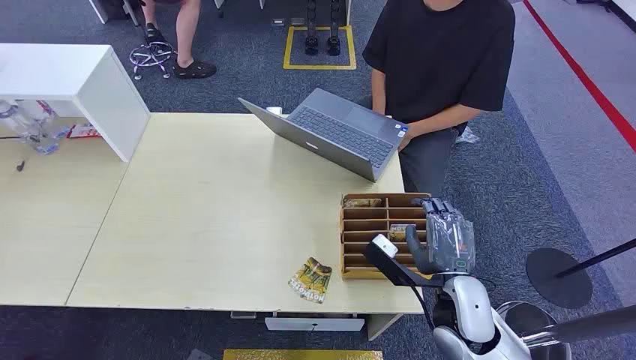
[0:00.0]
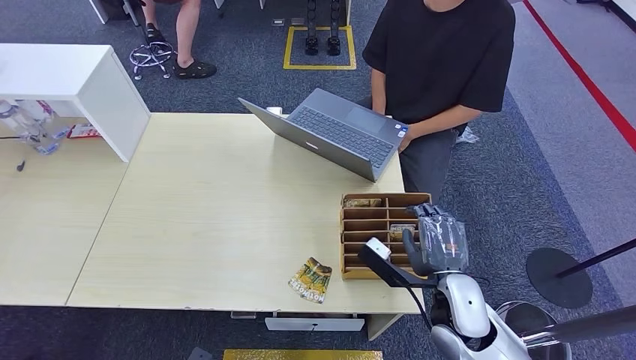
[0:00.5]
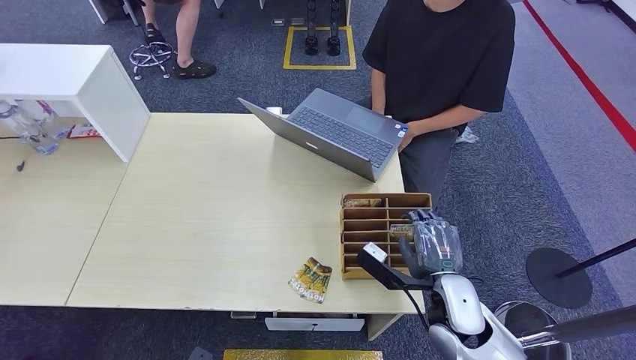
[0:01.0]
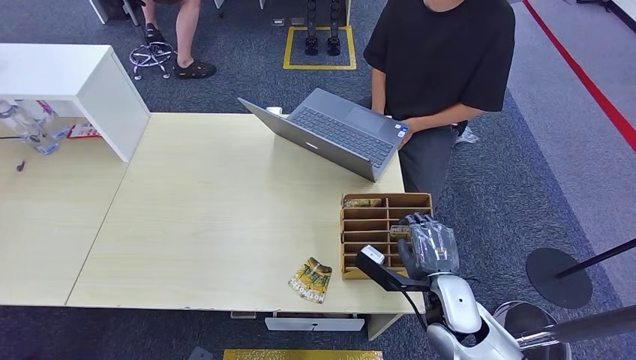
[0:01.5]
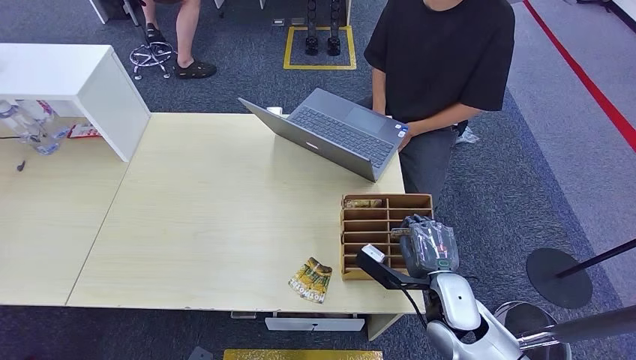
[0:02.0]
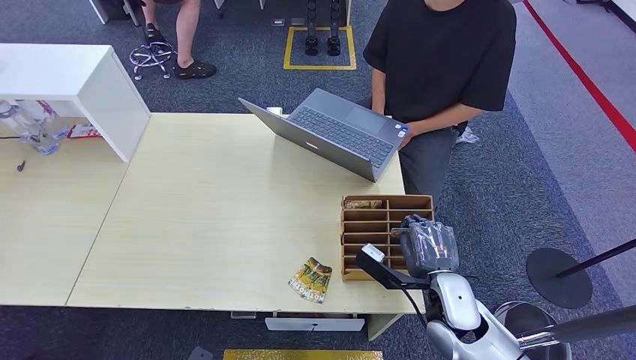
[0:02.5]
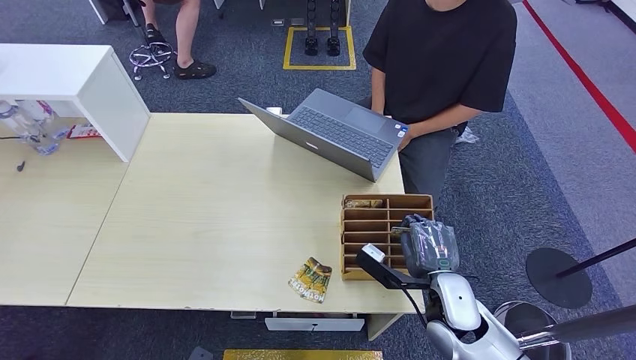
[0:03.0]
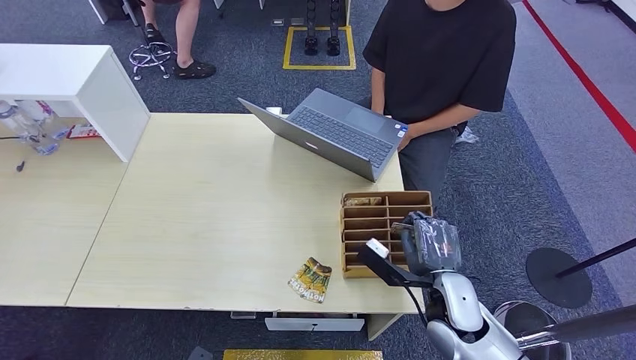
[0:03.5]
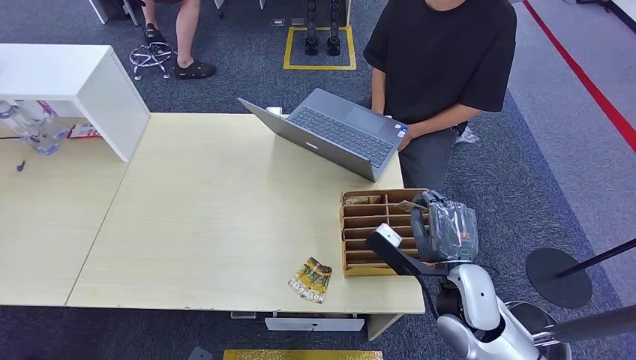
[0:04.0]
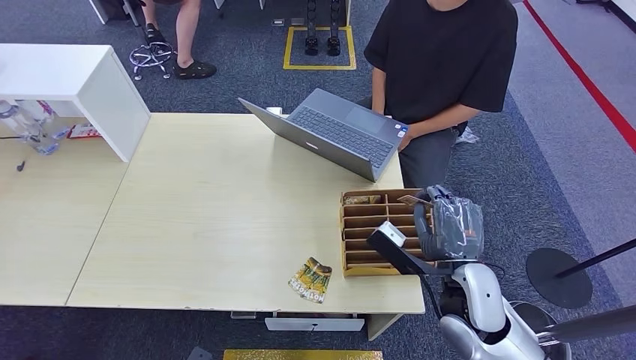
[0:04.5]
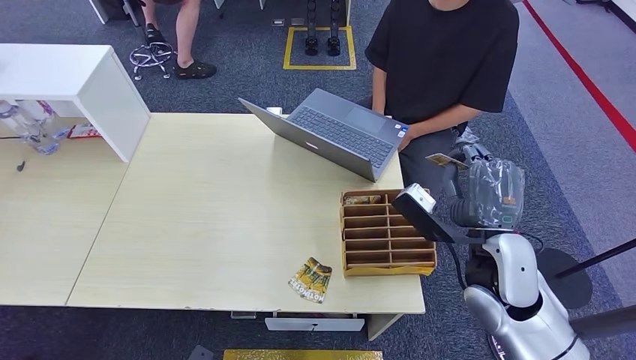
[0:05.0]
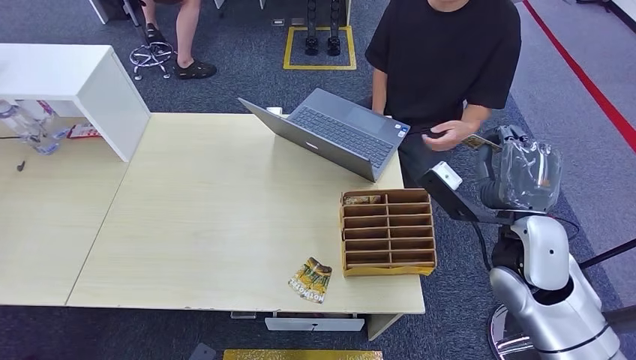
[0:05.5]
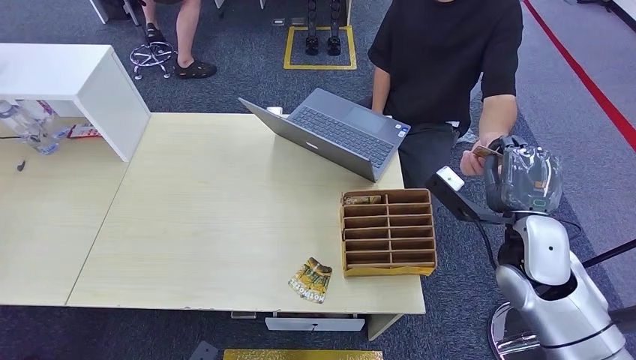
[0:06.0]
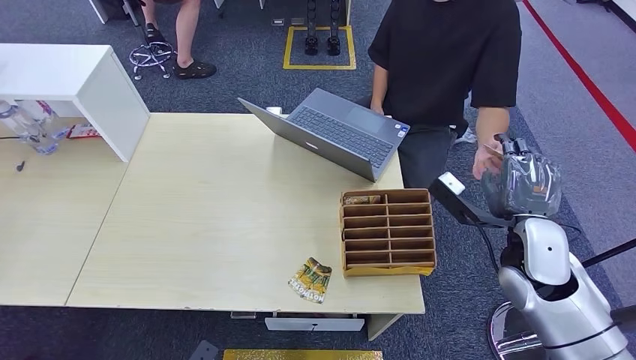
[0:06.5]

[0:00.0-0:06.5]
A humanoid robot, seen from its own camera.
Step, 0:00.0 to 0:04.0: Pick up the room card from the card holder.
Step, 0:05.0 to 0:06.5: Hand the room card to the target.
0:02.0 to 0:04.5: The right hand travels upward by approximately 5 cm.
0:04.5 to 0:06.5: The right hand moves to the right, some 10 cm.

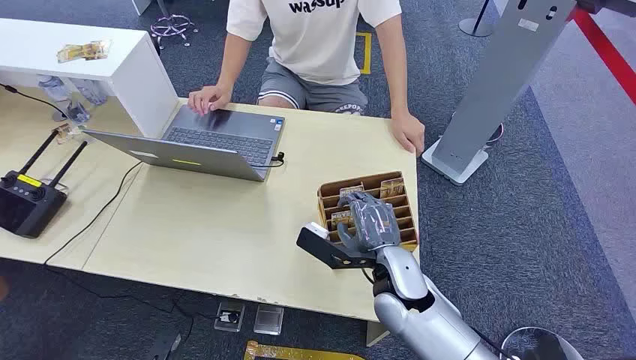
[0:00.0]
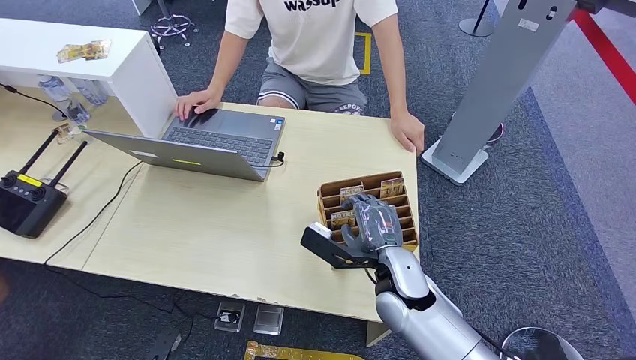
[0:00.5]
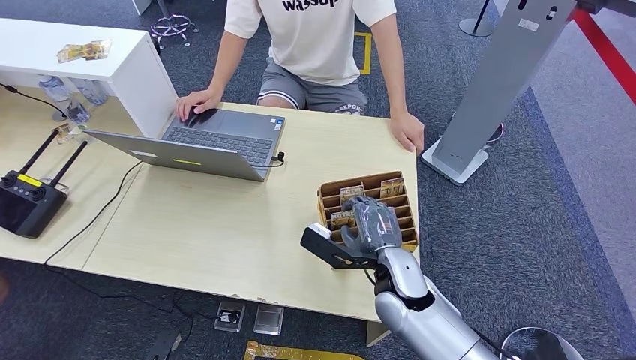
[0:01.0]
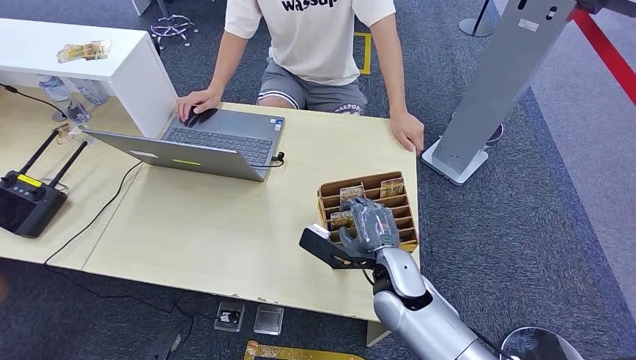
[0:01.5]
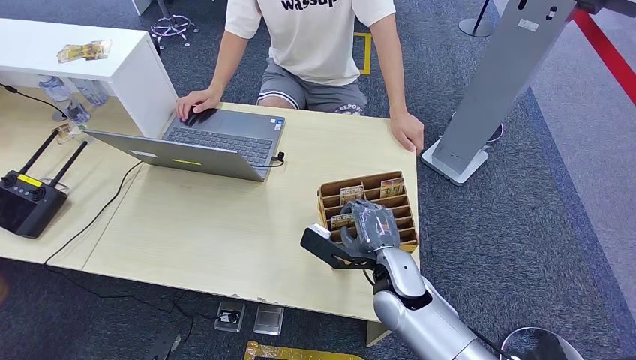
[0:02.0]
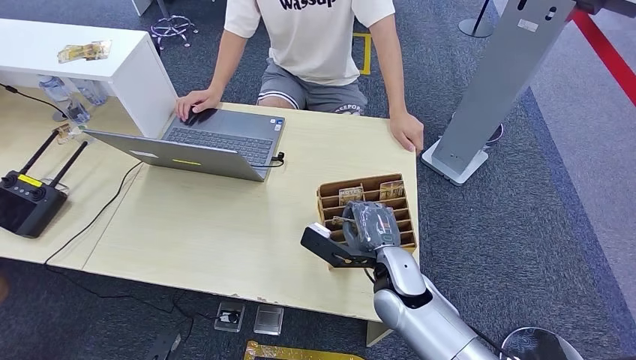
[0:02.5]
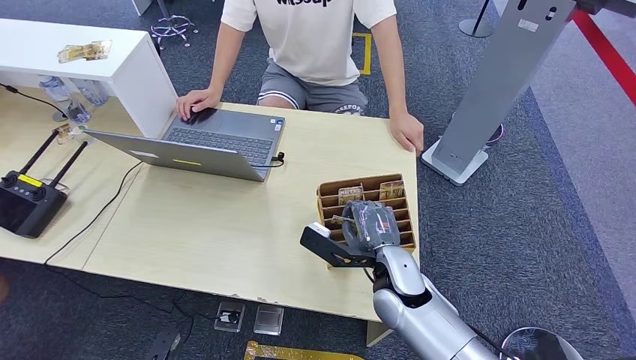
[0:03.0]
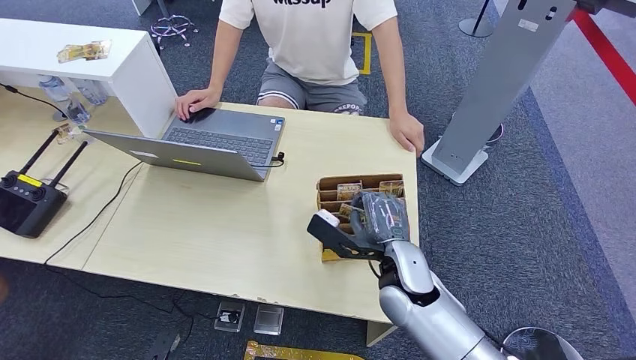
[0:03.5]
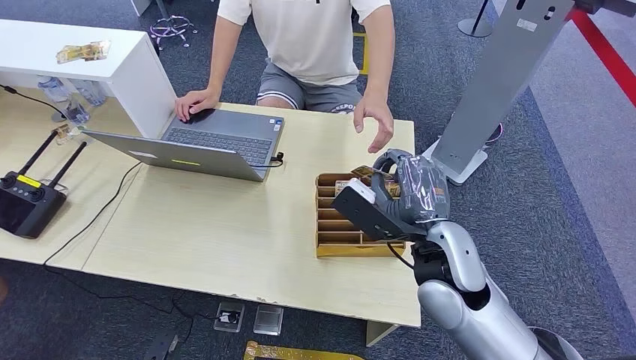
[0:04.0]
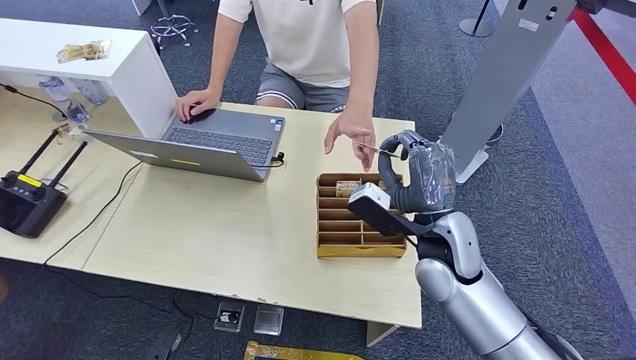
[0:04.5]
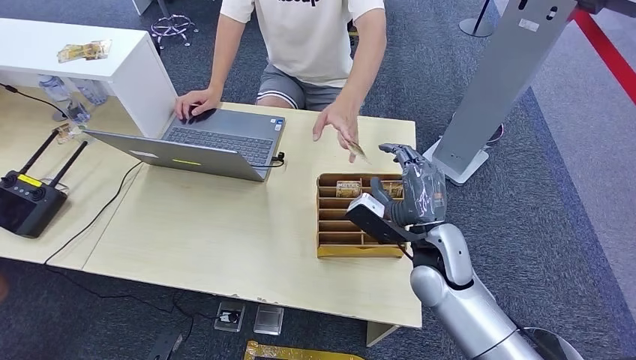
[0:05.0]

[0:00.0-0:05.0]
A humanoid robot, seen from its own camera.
Step, 0:00.0 to 0:03.5: Pick up the room card from the card holder.
Step, 0:04.5 to 0:05.0: Hand the room card to the target.
0:02.5 to 0:05.0: The right hand travels to the right by some 5 cm.
